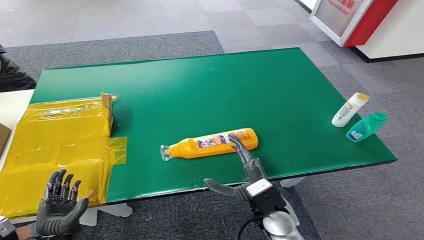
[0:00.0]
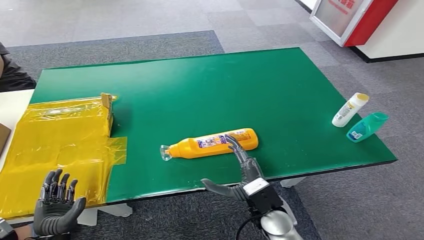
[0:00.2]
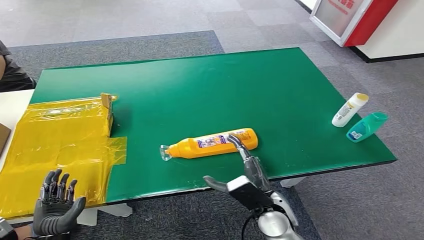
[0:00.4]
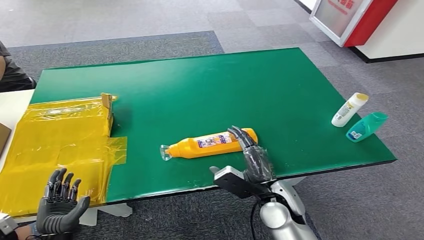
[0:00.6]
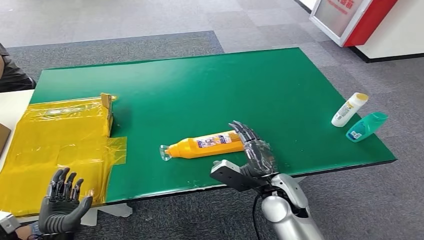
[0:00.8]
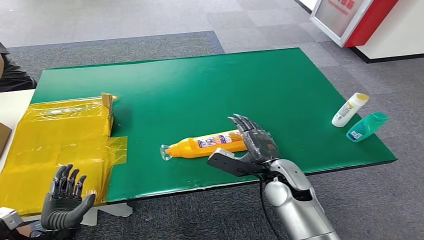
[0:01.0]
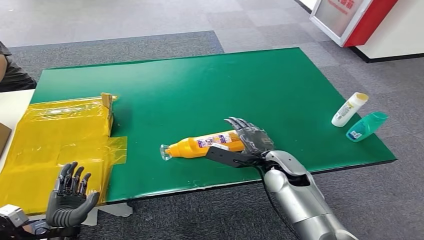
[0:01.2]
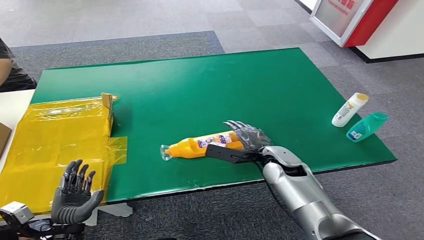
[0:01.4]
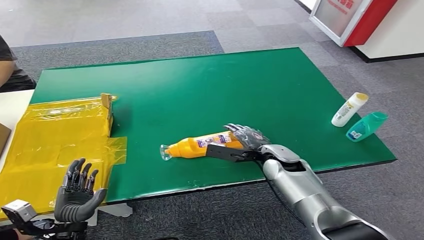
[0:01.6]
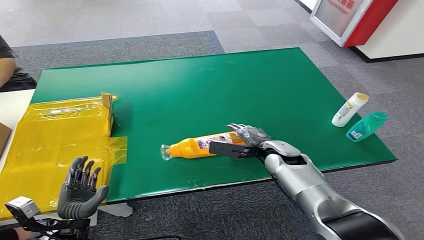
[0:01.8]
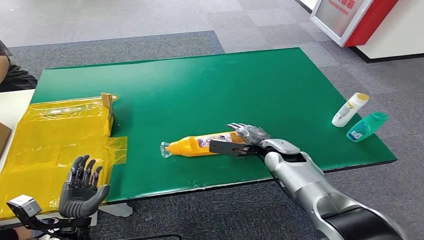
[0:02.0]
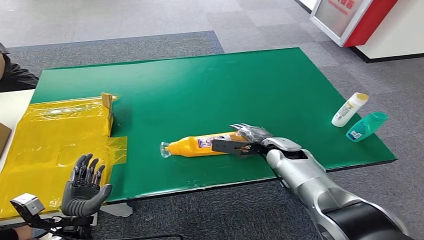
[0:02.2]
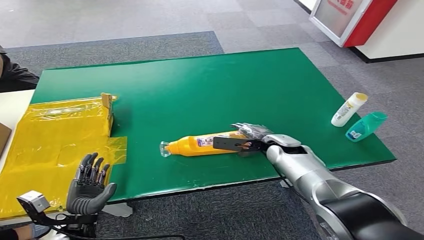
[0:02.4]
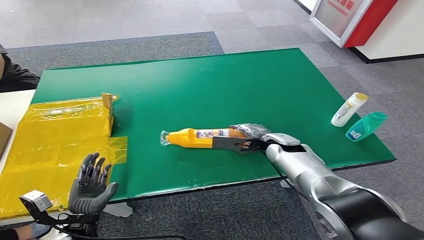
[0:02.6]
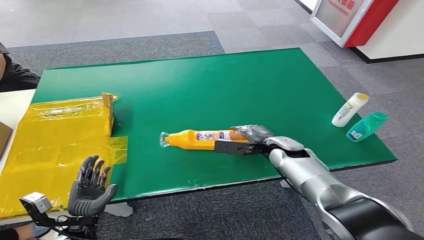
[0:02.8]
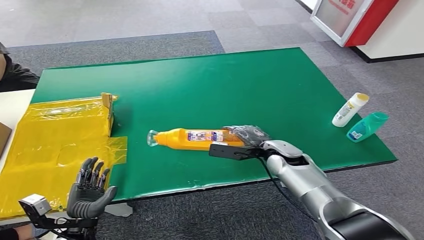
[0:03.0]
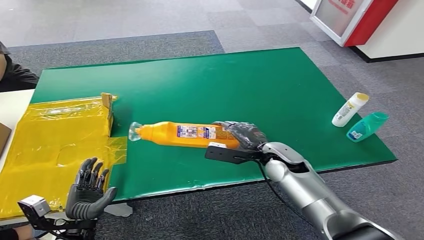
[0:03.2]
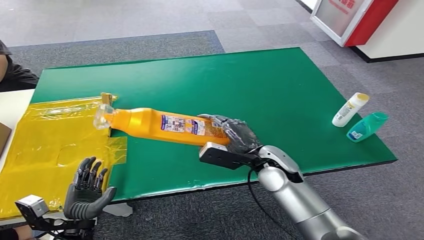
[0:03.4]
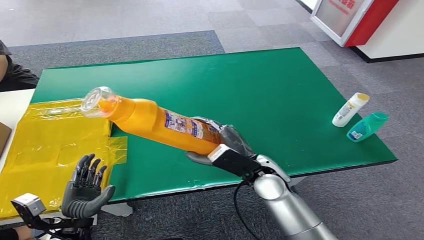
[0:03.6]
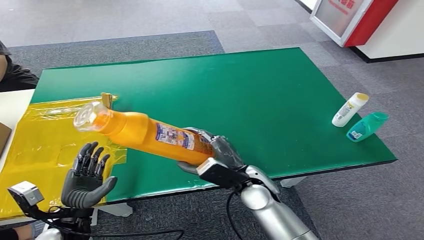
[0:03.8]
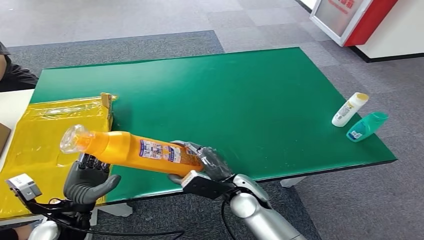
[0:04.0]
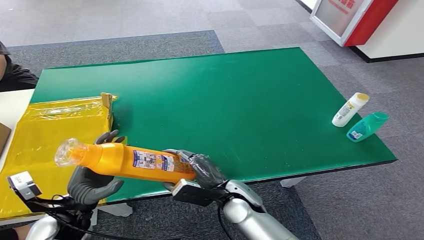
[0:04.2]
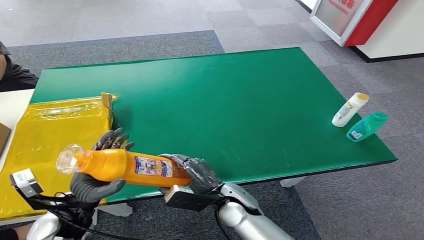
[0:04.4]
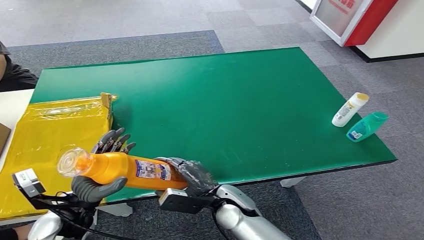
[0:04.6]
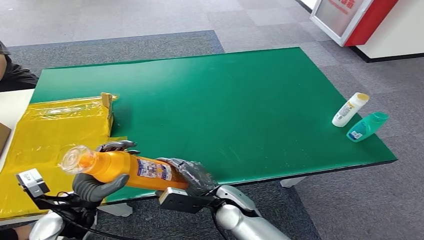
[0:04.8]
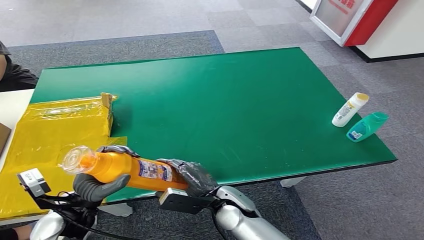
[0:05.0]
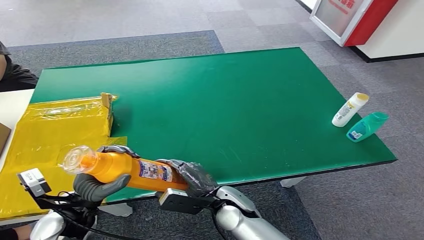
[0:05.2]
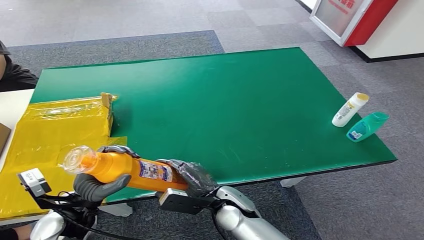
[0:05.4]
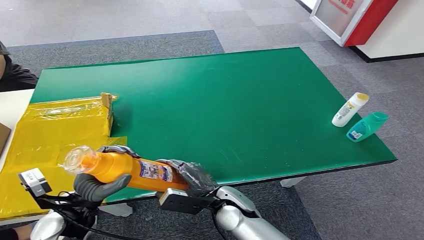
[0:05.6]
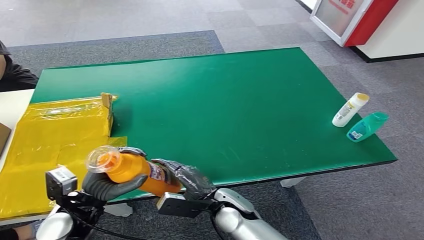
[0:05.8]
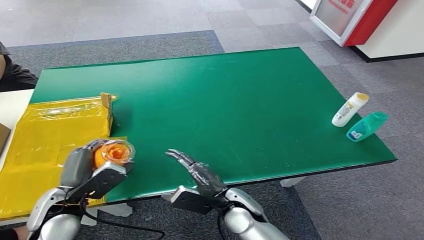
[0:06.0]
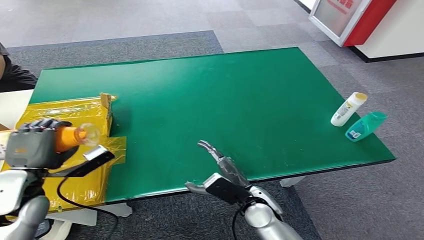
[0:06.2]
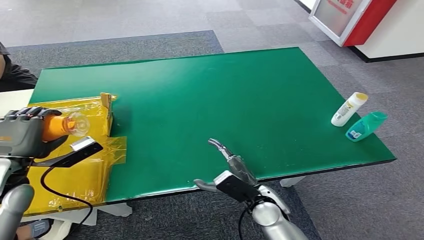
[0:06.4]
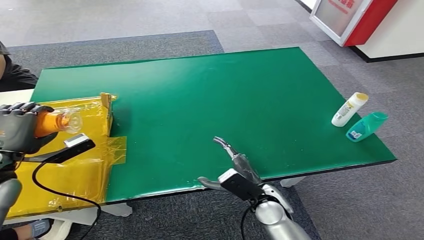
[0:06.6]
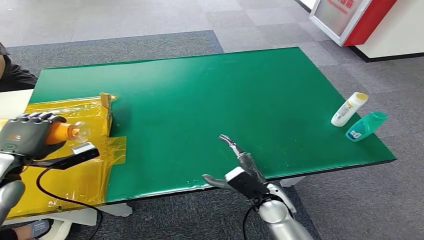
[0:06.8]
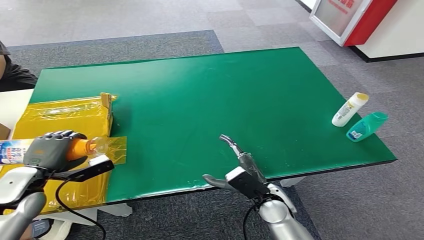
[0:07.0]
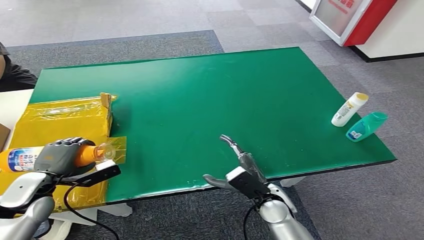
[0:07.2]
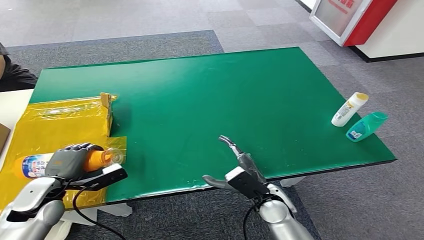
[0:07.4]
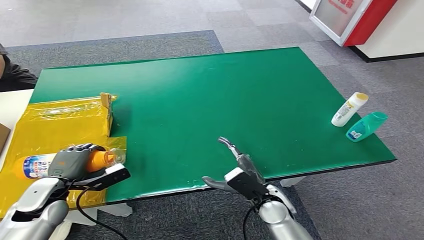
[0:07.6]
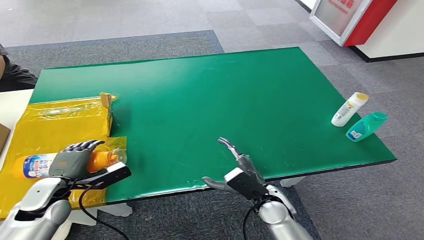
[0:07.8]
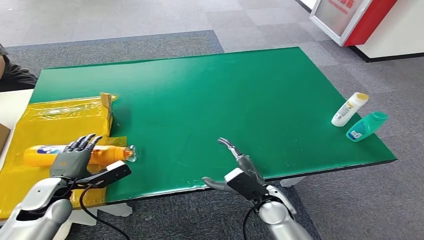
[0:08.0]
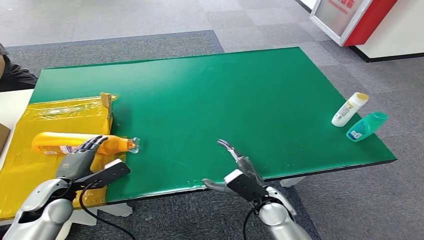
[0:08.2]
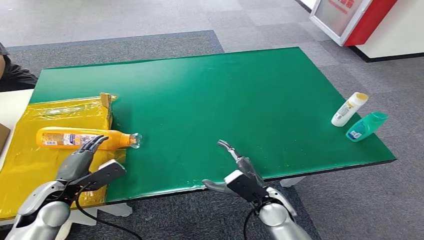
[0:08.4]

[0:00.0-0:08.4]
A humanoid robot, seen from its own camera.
Step, 0:00.0 to 0:03.4: Pick up the bottle from the table.
Step, 0:03.8 to 0:08.4: Turn the bottle to the front side.
0:01.4 to 0:02.8: The right hand moves roughly 5 cm.
0:02.8 to 0:04.2: The left hand heads upward, covering about 10 cm. Meanwhile the right hand moves to the left and backward, roughly 20 cm.
0:04.2 to 0:05.6: The hands make only small movements.
0:05.6 to 0:07.0: The left hand goes roughly 15 cm to the left and forward. The right hand is displaced to the right by approximately 10 cm.
0:07.0 to 0:08.4: The left hand changes place by approximately 5 cm.
